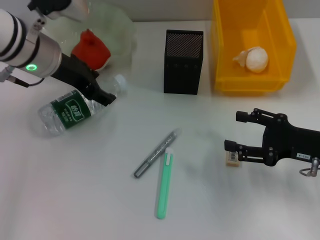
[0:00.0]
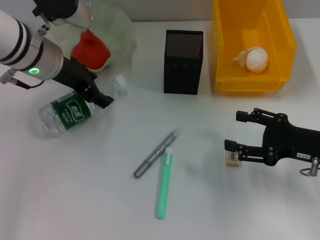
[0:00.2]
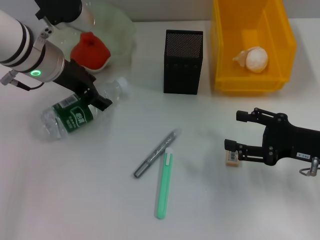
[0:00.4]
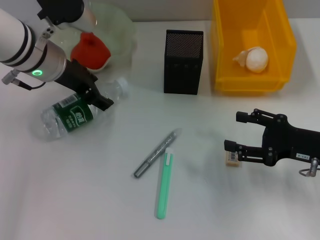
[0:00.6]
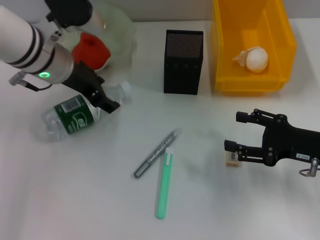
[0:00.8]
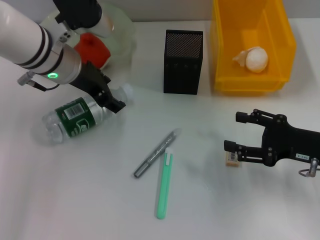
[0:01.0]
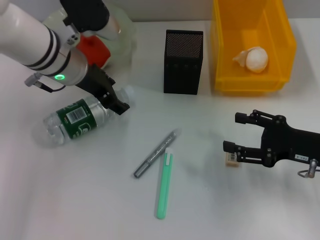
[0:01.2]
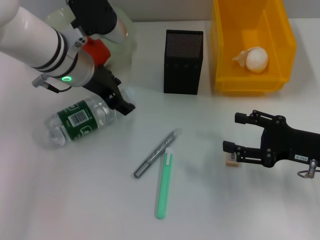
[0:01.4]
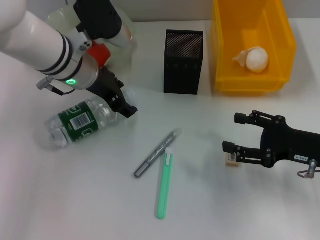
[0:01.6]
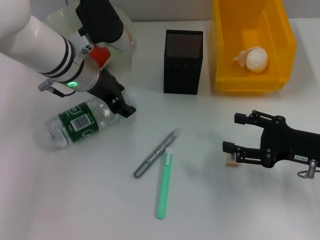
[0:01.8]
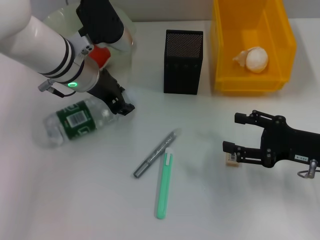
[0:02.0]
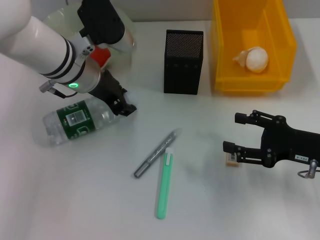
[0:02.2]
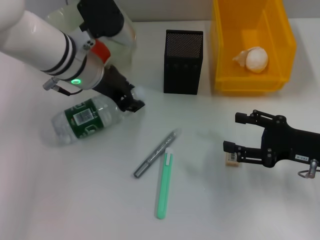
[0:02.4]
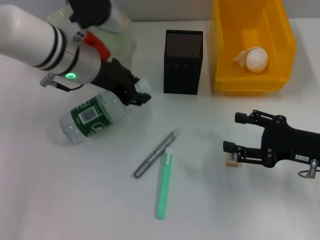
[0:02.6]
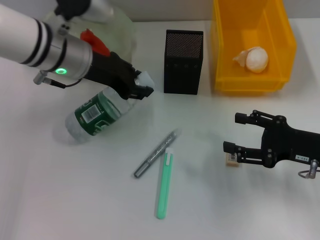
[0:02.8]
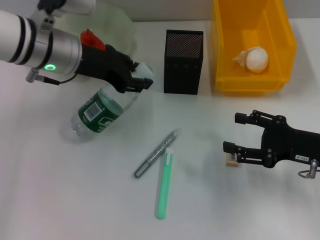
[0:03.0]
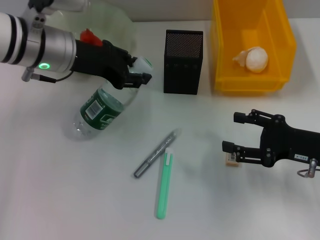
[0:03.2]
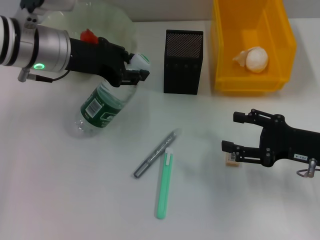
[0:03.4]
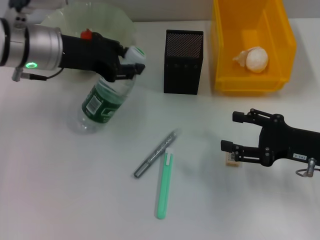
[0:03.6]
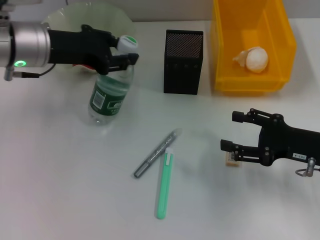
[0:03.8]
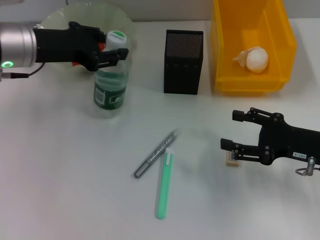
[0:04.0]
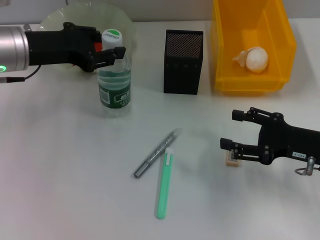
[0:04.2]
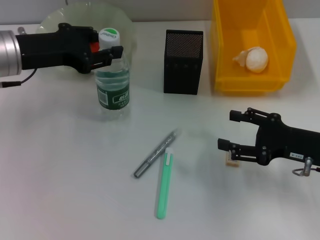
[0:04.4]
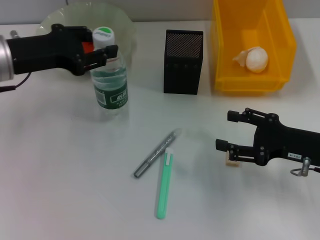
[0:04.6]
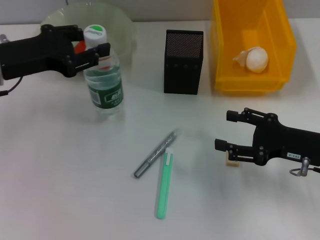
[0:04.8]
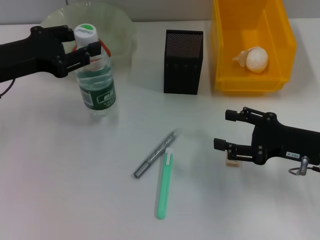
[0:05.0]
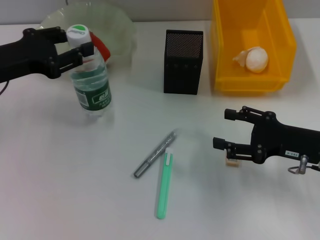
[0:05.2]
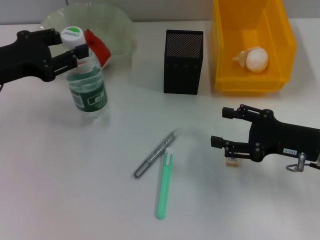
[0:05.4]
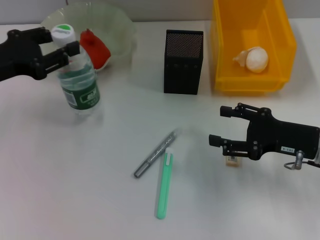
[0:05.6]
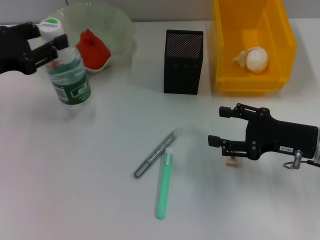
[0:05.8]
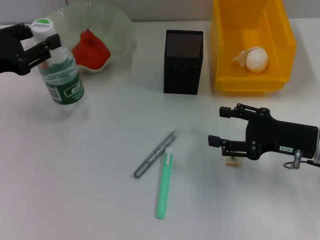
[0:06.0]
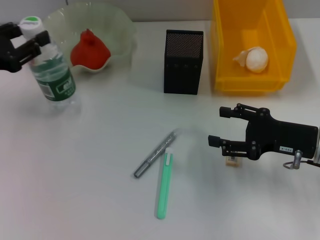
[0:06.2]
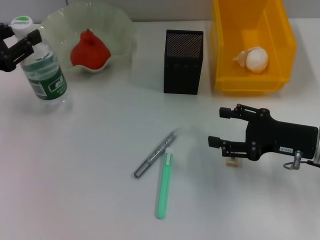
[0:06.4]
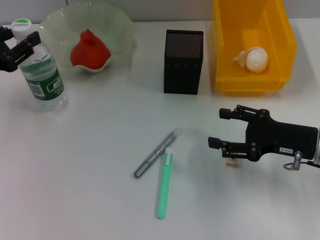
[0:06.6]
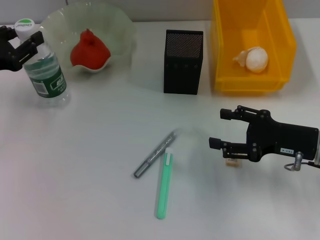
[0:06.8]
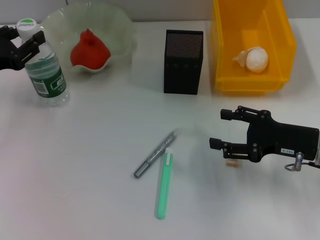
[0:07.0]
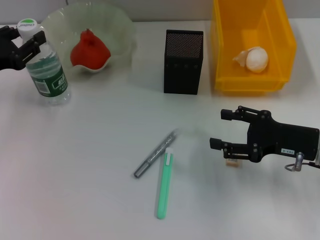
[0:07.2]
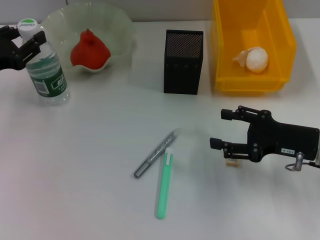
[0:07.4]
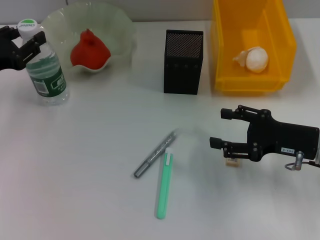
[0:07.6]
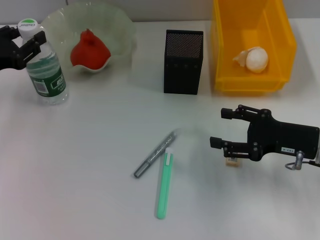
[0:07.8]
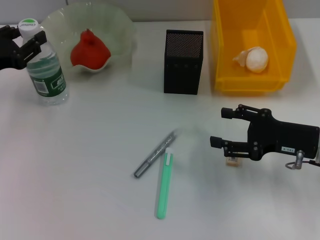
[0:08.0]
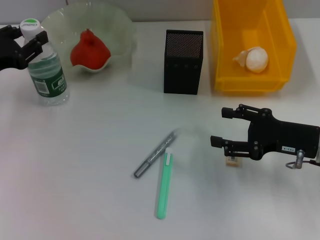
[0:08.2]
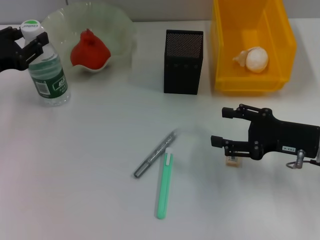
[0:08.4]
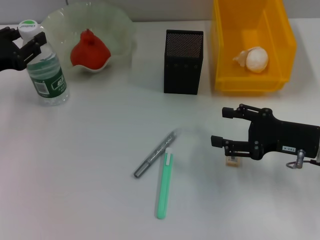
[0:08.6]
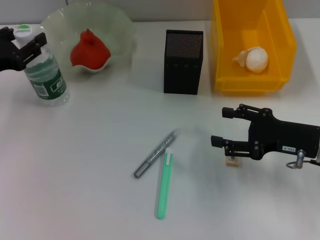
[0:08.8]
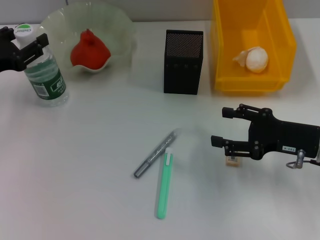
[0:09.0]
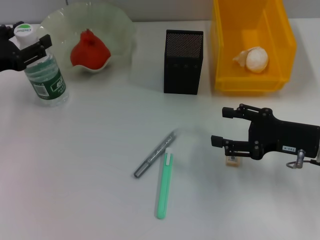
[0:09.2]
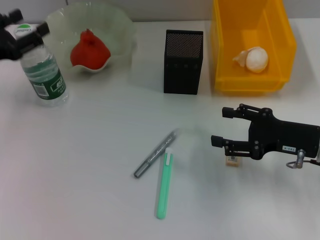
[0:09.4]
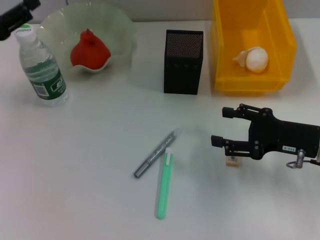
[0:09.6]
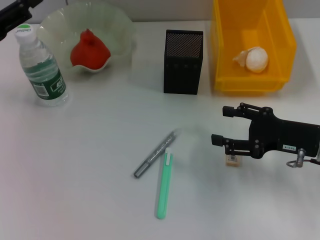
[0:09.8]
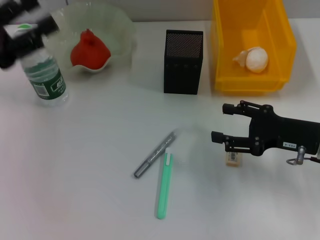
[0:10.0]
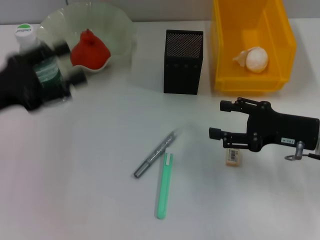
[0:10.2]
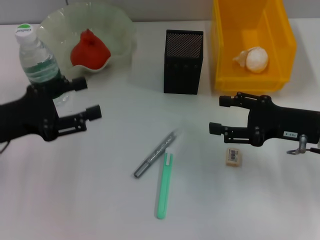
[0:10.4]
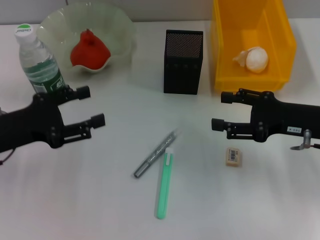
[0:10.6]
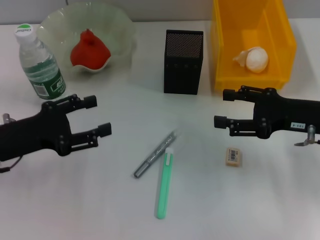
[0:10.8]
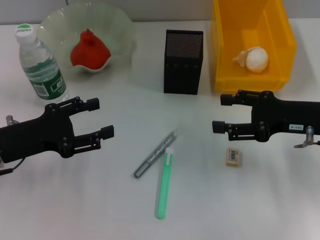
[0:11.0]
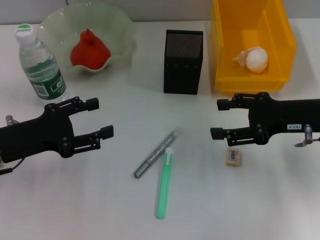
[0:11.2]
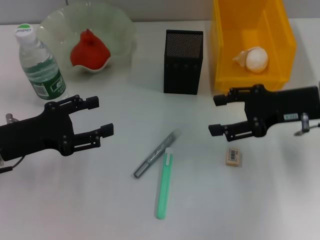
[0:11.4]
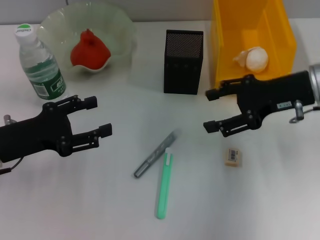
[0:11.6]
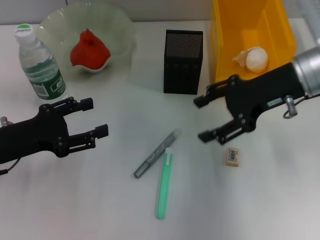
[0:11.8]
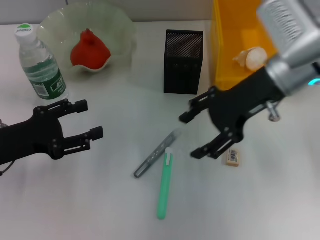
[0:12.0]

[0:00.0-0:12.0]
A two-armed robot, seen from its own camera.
Step, 0:00.0 to 0:02.0: Grab the water bottle with the left hand.
Step, 0:02.4 to 0:09.2: Place the water bottle on the table with the left hand.
0:00.0 to 0:01.6: The left gripper shifts by roughly 5 cm.
0:01.6 to 0:03.0: The left gripper closes up.
0:03.0 to 0:04.4: The left gripper goes some 5 cm to the left.
0:04.4 to 0:06.0: The left gripper goes roughly 10 cm to the left.
0:06.0 to 0:07.6: The grippers stay close to where they were, moving slightly.
0:07.6 to 0:09.0: Neither gripper changes place.
0:09.0 to 0:10.4: The left gripper moves backward, approximately 5 cm, and opens.
0:10.4 to 0:12.0: The right gripper is displaced to the left, upward and forward by some 15 cm.

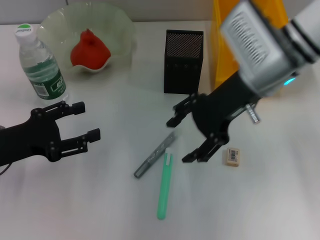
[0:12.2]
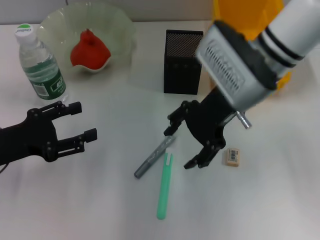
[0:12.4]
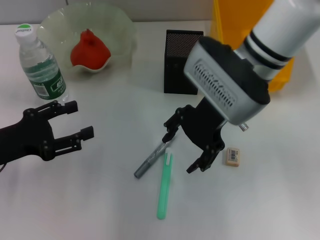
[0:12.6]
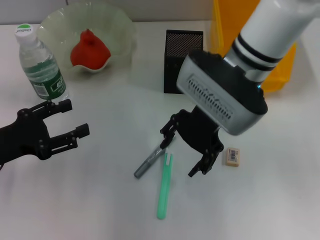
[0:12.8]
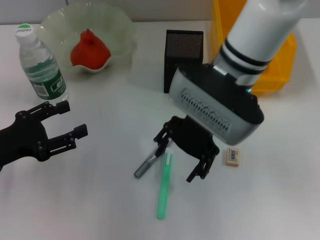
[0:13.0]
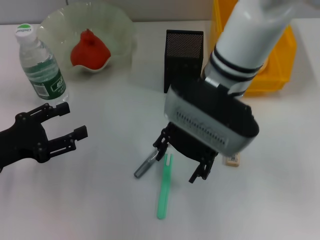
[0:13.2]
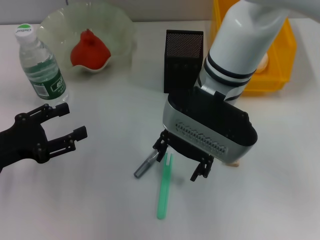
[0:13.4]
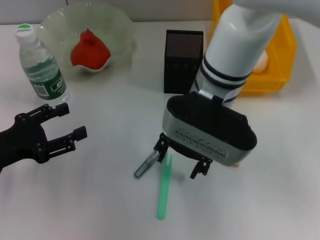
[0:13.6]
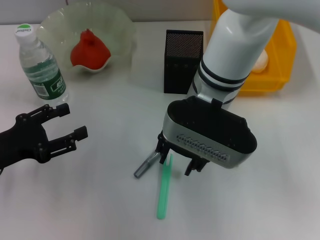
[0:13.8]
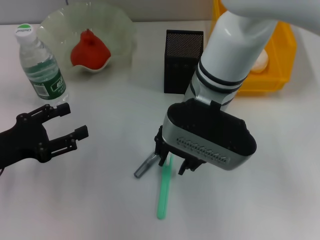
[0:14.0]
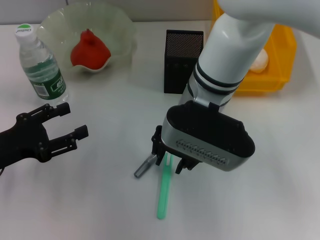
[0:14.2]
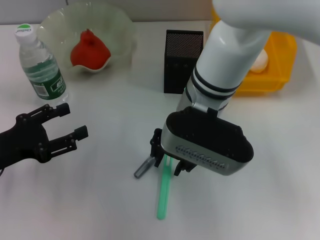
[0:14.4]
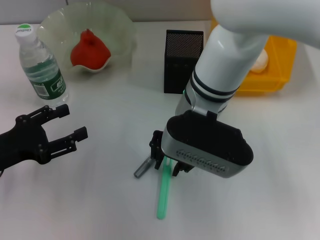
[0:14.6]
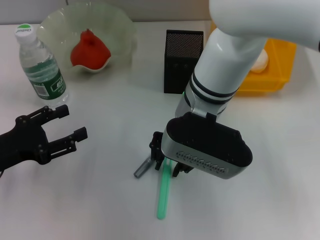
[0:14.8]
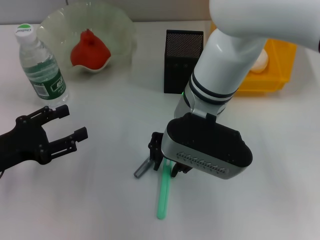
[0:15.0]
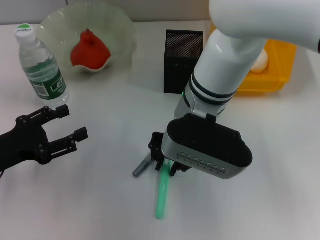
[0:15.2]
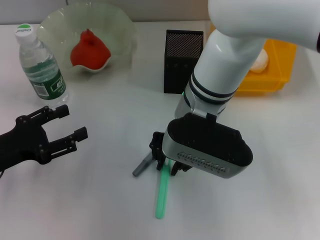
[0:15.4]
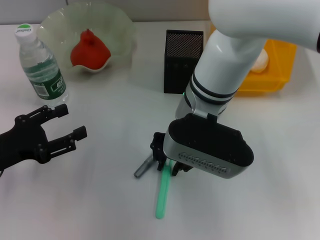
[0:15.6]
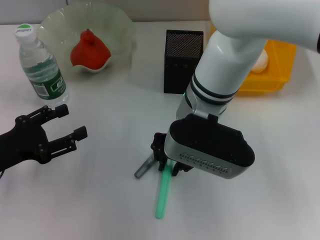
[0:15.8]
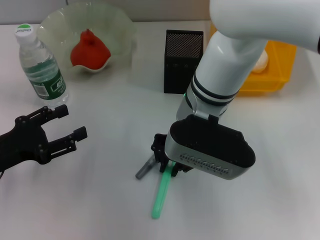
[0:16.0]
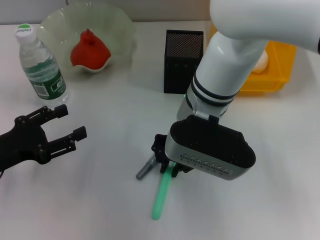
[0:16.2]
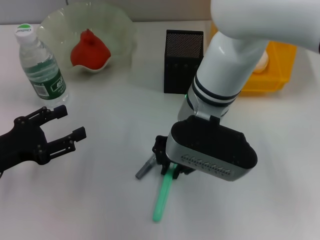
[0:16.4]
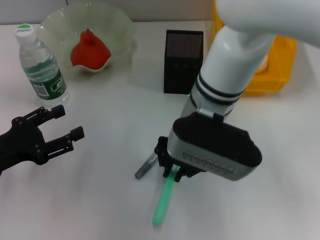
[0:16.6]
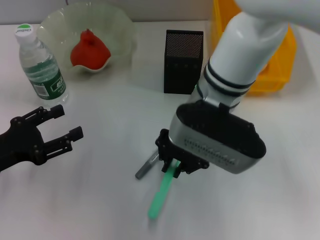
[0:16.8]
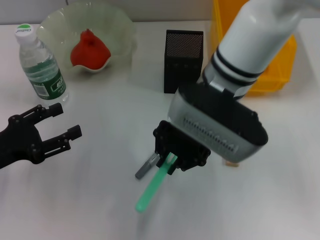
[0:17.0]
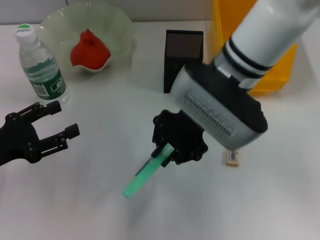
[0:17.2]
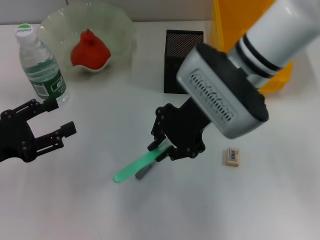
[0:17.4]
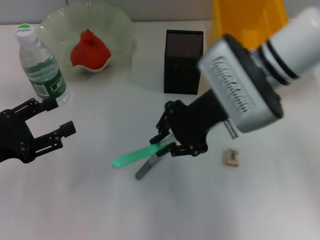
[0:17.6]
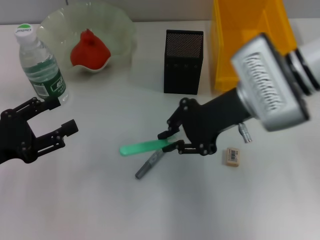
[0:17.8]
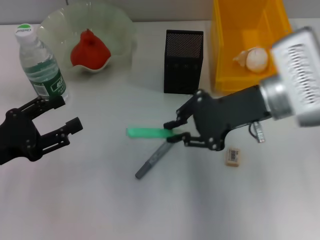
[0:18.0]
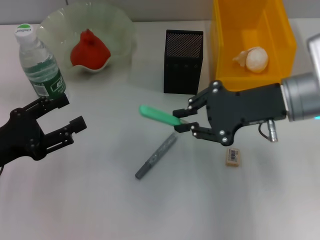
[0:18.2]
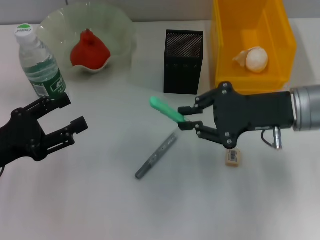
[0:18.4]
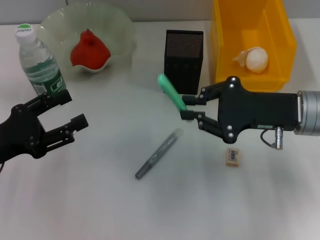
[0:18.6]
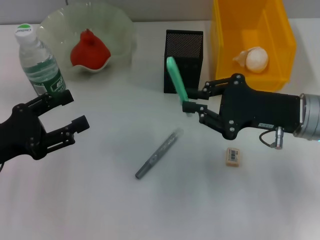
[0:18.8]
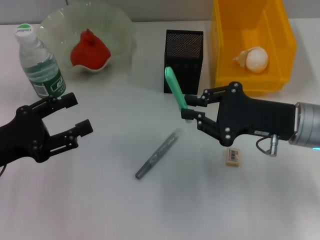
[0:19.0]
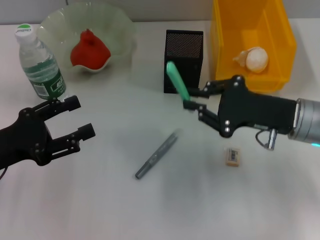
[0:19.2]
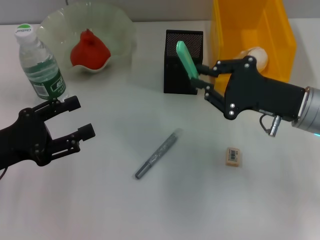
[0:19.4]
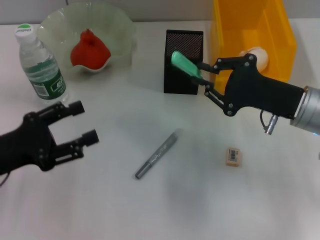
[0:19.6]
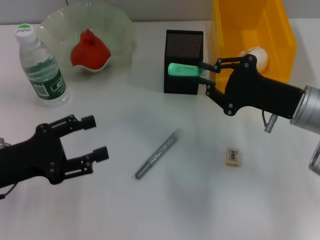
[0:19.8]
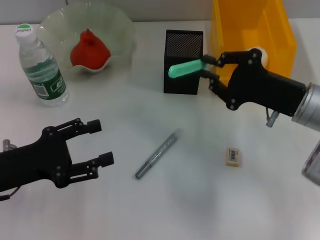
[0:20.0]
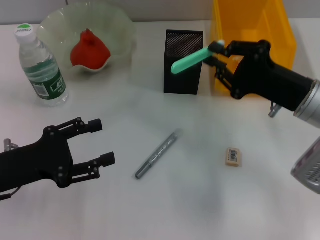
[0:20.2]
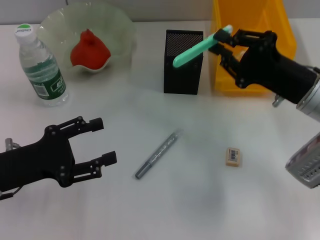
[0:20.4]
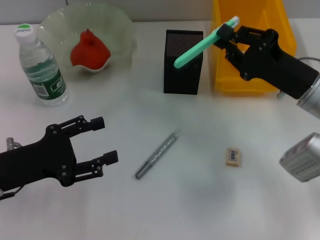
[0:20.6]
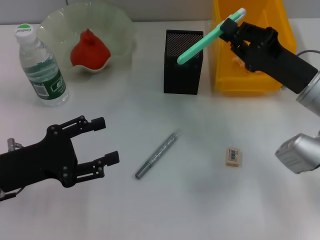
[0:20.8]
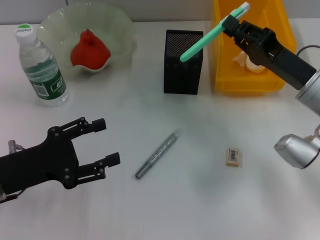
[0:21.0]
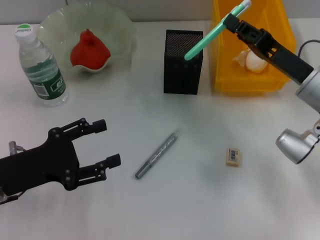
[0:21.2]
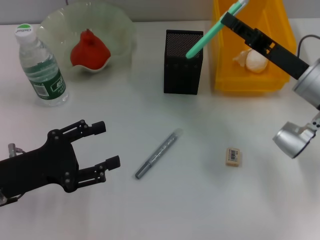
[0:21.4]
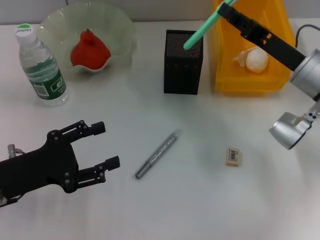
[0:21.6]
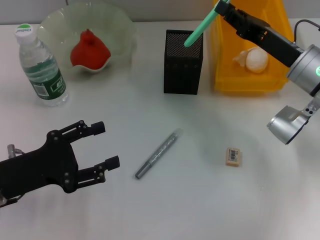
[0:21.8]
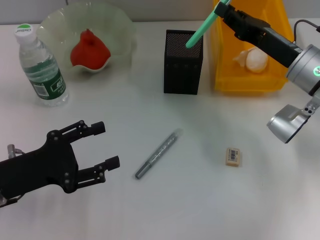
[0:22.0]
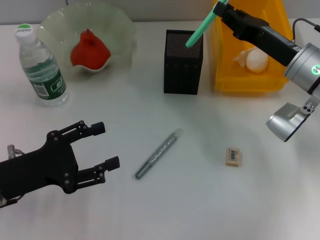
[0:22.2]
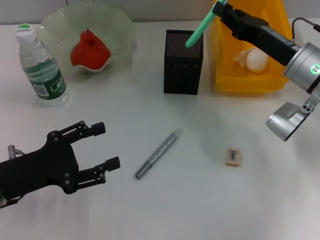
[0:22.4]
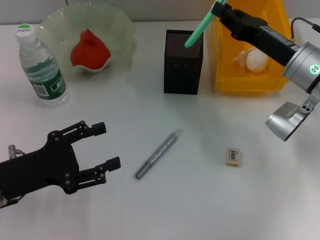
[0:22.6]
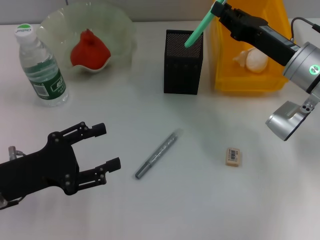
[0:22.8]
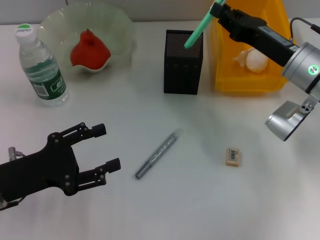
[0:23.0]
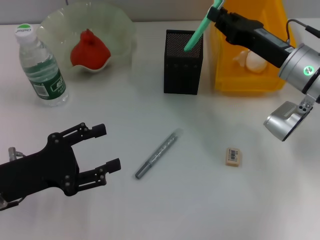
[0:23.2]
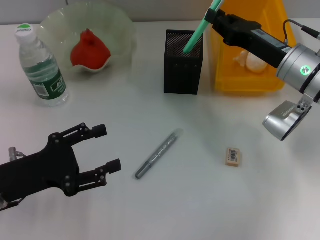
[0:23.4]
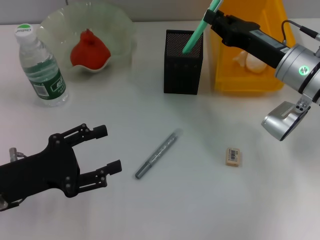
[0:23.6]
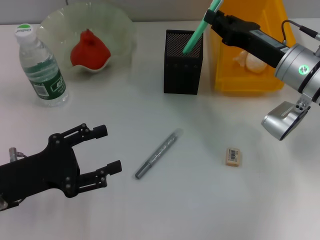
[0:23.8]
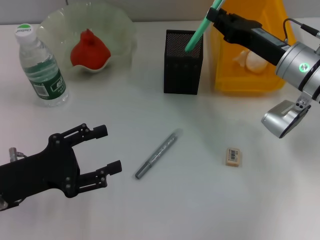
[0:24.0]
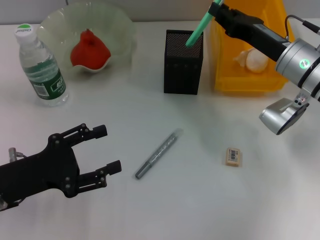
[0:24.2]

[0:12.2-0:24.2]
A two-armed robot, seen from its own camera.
Step, 0:12.2 to 0:16.2: Grab the blue utility knife with the right hand.
0:12.2 to 0:13.8: The right gripper goes about 10 cm to the left.
0:13.8 to 0:15.2: The right gripper closes its fingers.
0:15.2 to 0:16.6: The two grippers keep their place.
0:16.6 to 0:18.2: The right gripper is displaced to the right by about 15 cm.
0:18.2 to 0:19.8: The right gripper goes about 5 cm downward.
0:22.6 to 0:24.2: There are only small adjustments of the grippers.
